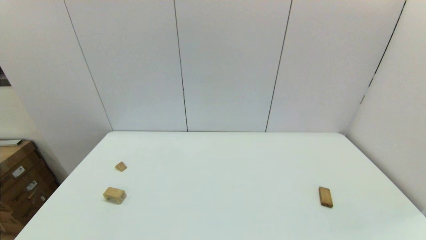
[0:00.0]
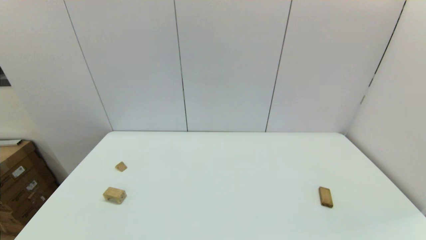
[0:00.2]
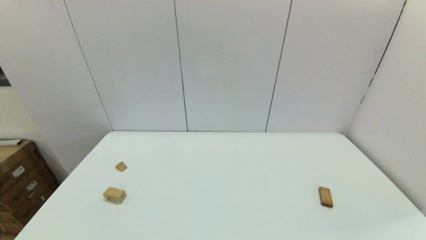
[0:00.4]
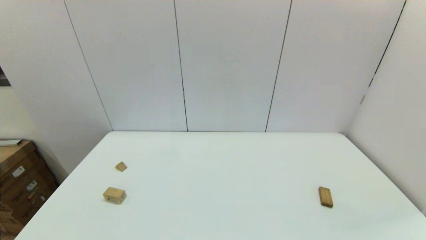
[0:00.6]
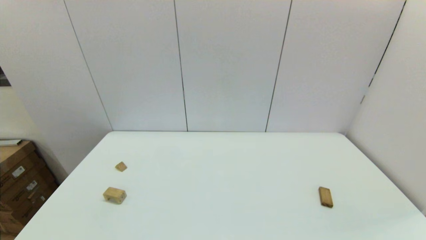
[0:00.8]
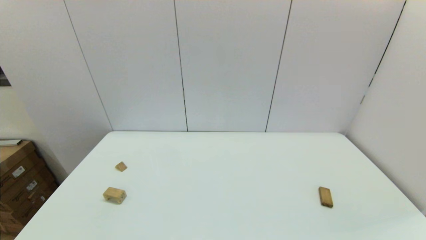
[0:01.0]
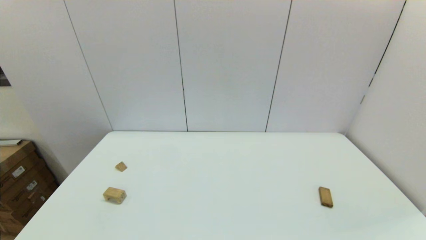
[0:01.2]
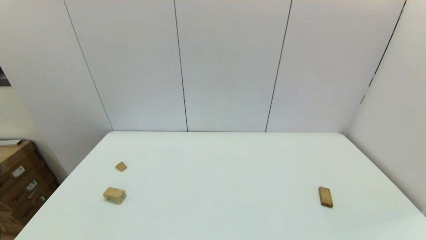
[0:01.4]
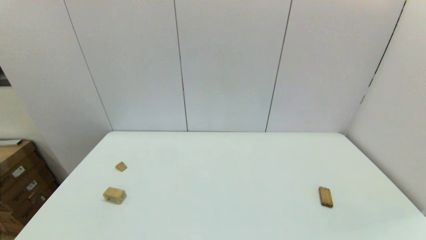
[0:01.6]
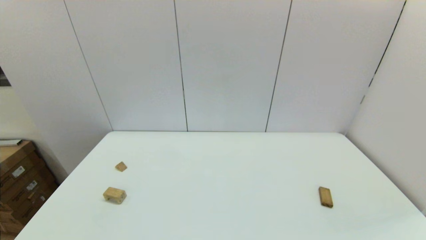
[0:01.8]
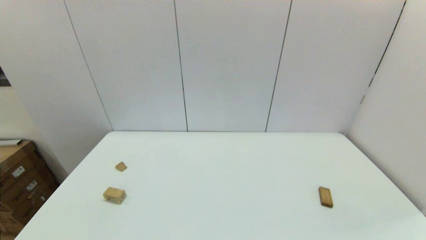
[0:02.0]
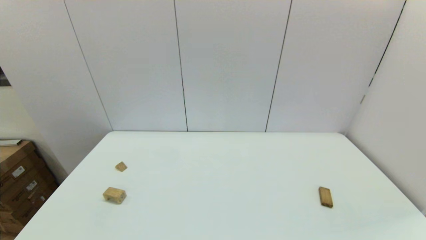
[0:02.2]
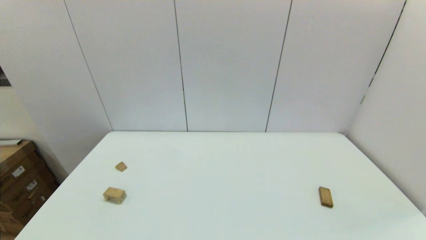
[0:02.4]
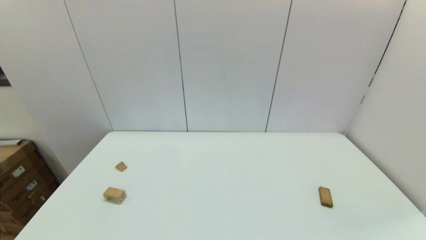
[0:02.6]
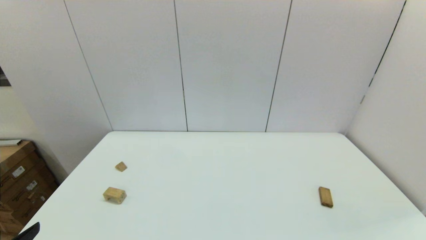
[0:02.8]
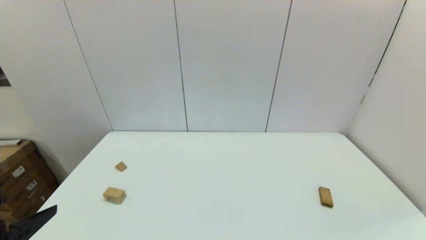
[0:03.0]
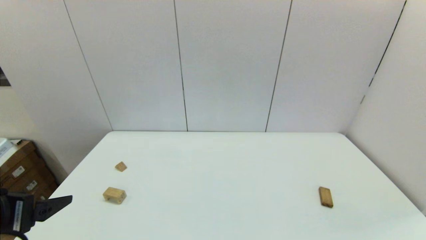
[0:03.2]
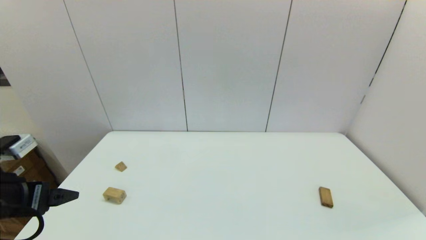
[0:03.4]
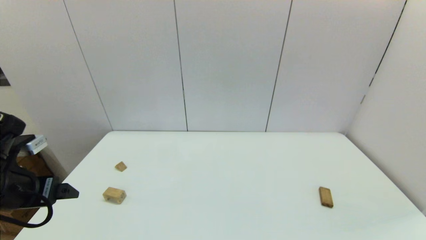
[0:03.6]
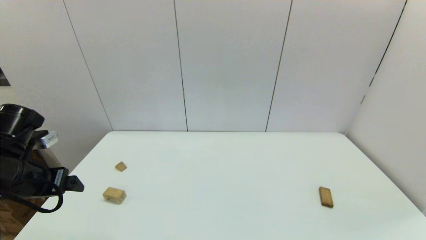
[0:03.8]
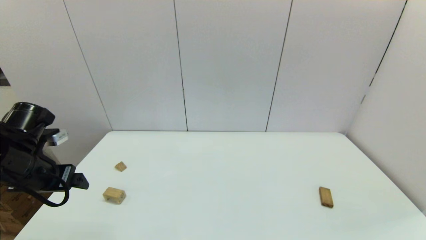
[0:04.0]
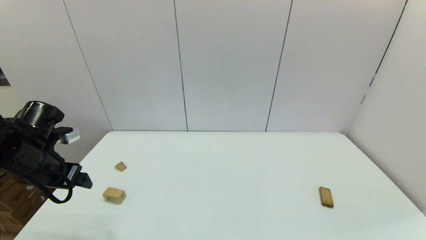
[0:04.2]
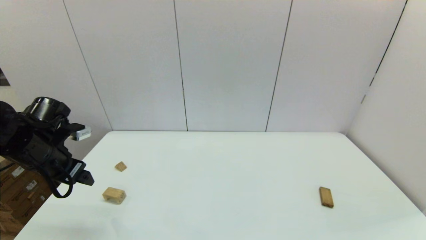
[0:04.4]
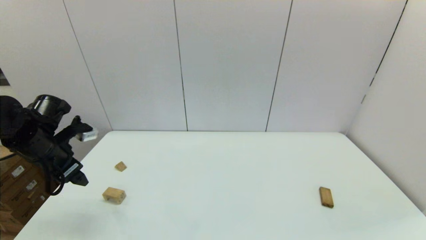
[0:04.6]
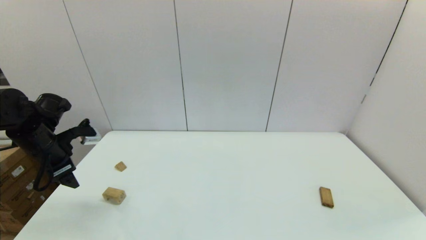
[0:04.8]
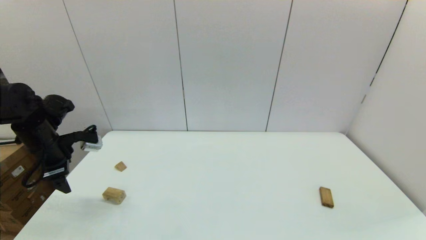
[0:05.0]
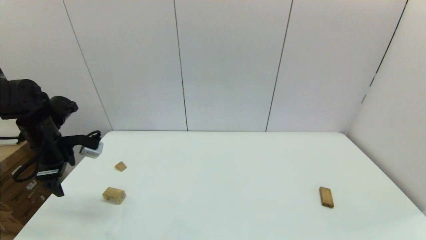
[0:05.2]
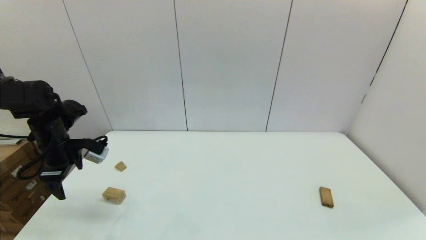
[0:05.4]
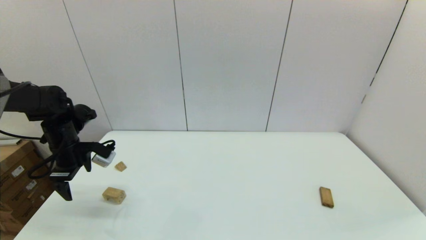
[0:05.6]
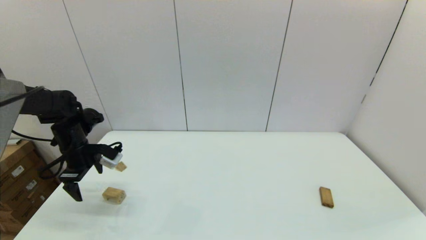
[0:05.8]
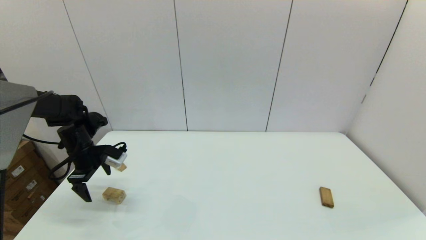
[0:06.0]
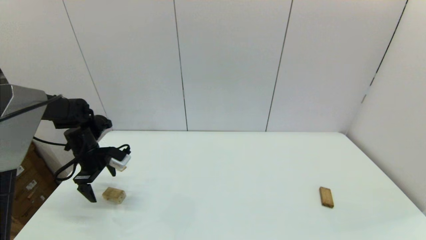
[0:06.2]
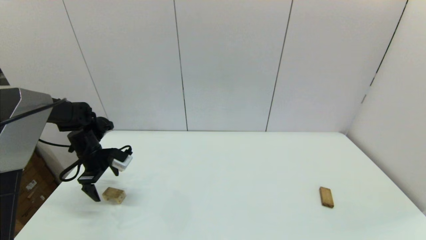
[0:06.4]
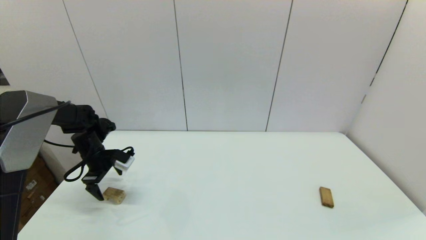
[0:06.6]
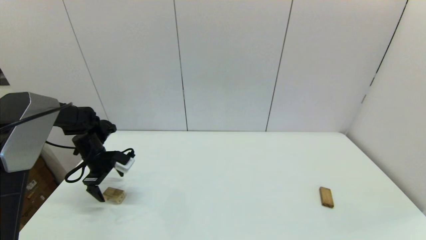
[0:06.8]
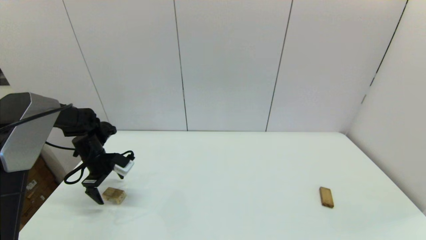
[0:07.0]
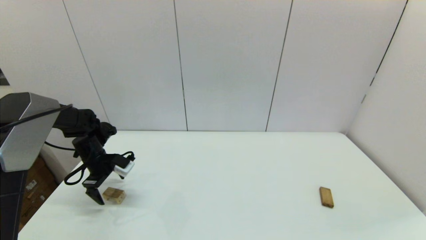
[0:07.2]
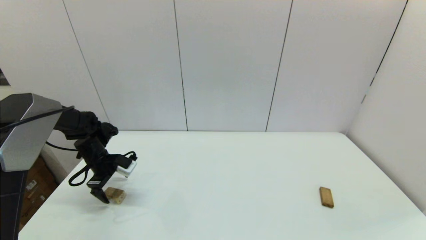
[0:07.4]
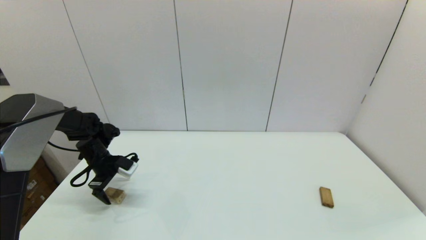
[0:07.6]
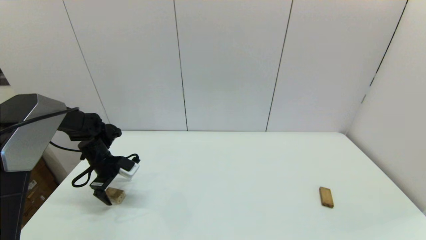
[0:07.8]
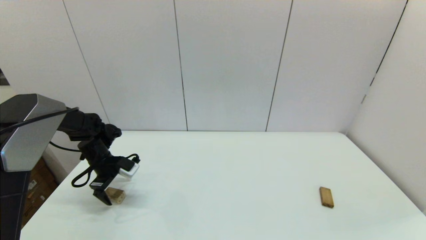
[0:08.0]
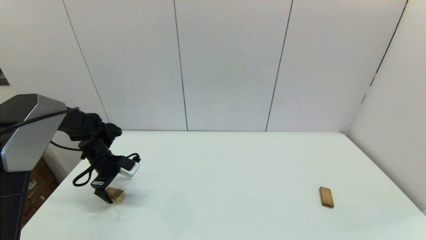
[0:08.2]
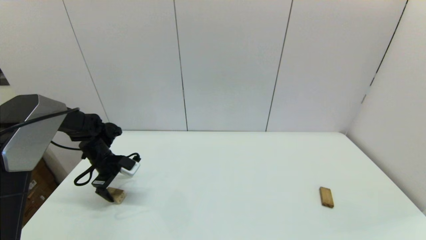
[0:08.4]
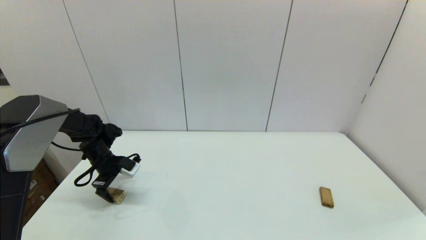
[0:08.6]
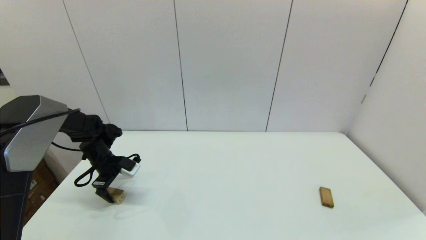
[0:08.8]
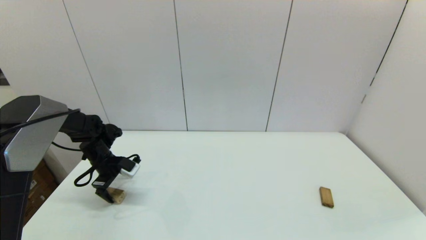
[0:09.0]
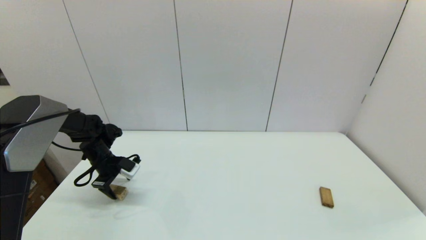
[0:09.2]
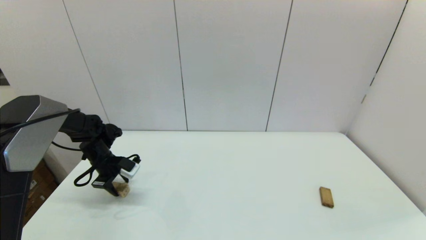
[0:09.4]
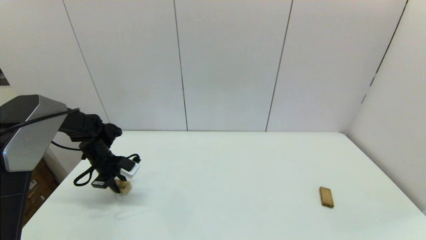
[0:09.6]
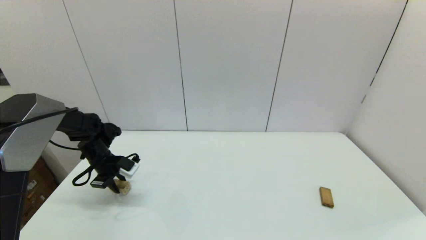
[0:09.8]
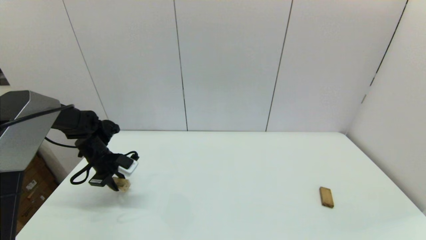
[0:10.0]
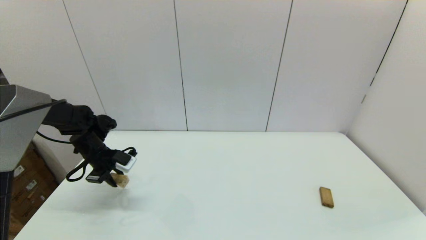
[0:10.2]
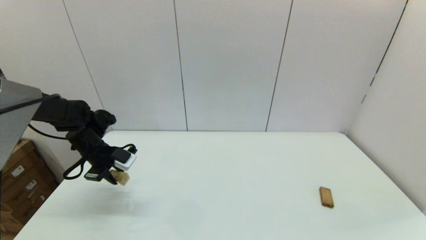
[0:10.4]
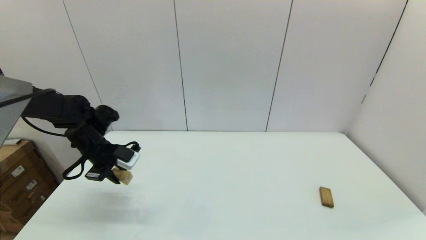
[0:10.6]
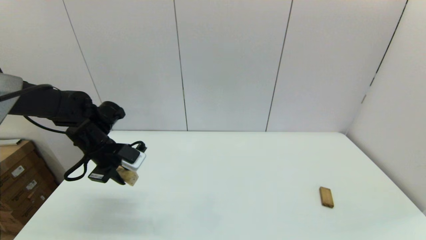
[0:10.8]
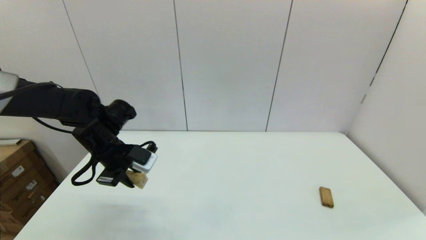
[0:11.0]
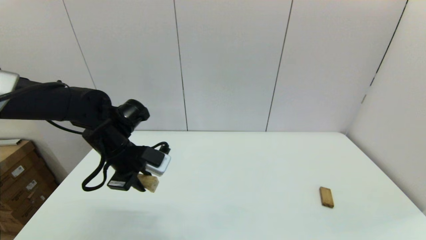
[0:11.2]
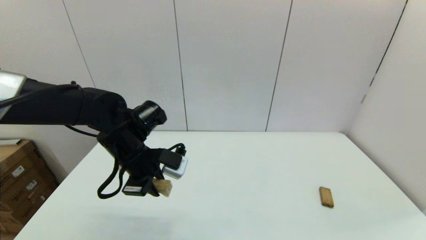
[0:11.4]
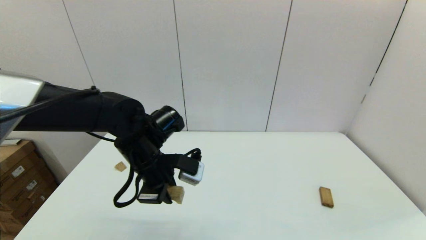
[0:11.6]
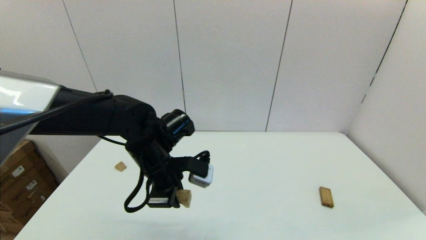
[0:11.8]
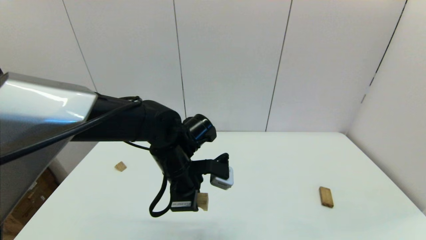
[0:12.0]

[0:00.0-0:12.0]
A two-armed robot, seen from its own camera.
Task of the whole recording: place the arched building blocks in the center of the table, set up the rectangular building blocks, and then set up the triangular building blocks.
Step, 0:02.8 to 0:09.6: Grasp the arch-shaped block with the left gripper.
0:00.0 to 0:01.6: Neither gripper changes place.
0:01.6 to 0:03.0: The left gripper shifts roughly 15 cm upward and forward.
0:03.0 to 0:04.4: The left gripper is displaced forward by some 20 cm.
0:04.4 to 0:06.0: The left gripper is displaced forward and downward by approximately 10 cm.
0:06.0 to 0:07.6: The left gripper is displaced downward by some 5 cm.
0:07.6 to 0:09.0: The two grippers keep their place.
0:09.0 to 0:10.4: The left gripper heads upward, covering roughly 5 cm, and closes up.
0:10.4 to 0:12.0: The left gripper is displaced to the right and backward by about 25 cm.

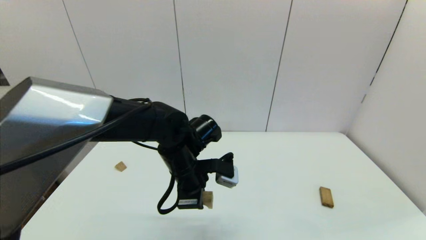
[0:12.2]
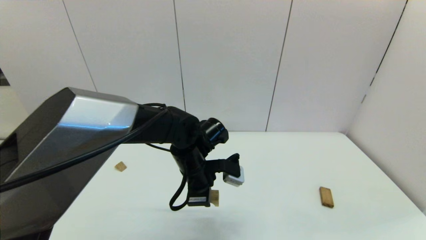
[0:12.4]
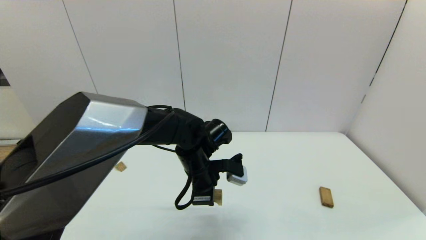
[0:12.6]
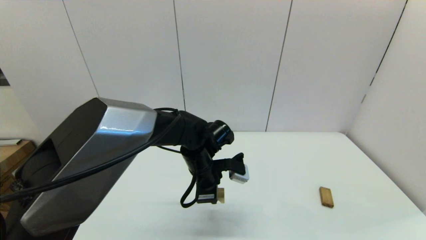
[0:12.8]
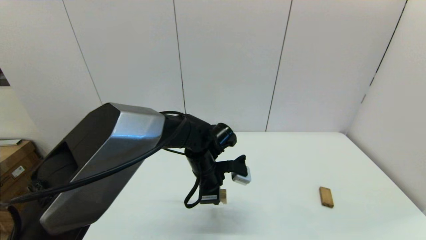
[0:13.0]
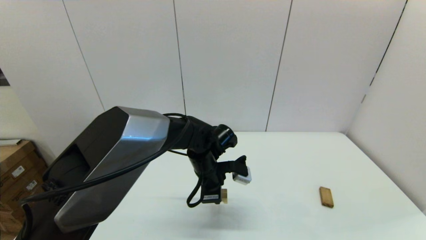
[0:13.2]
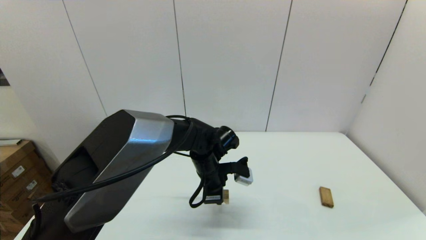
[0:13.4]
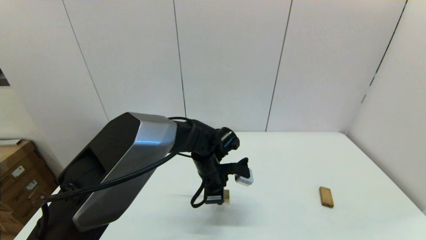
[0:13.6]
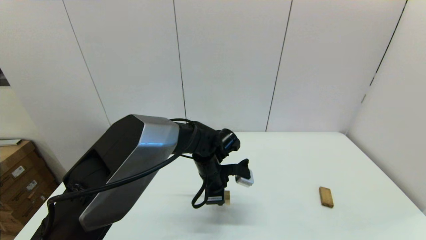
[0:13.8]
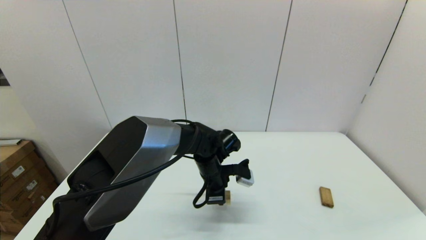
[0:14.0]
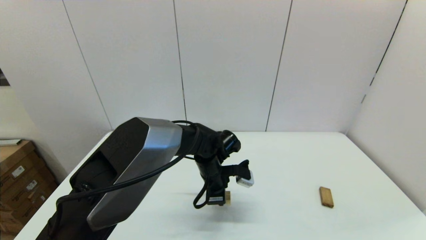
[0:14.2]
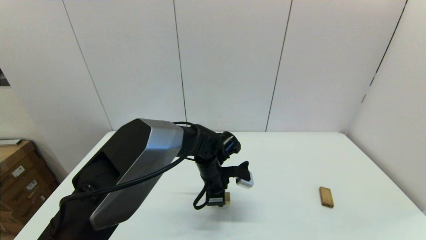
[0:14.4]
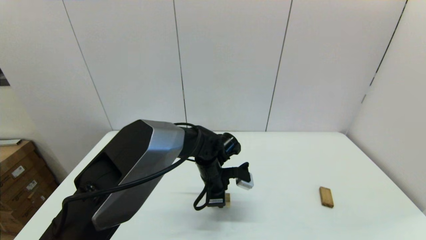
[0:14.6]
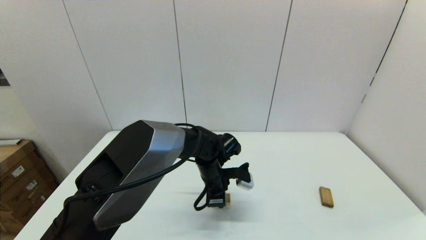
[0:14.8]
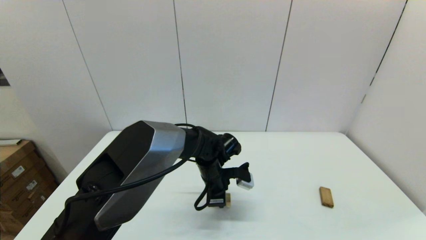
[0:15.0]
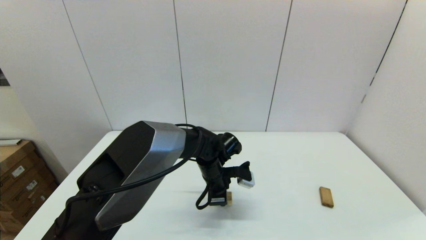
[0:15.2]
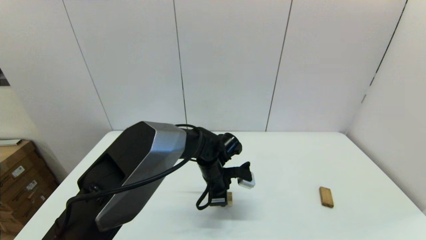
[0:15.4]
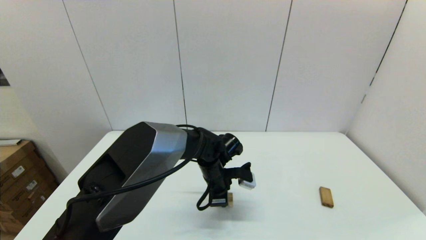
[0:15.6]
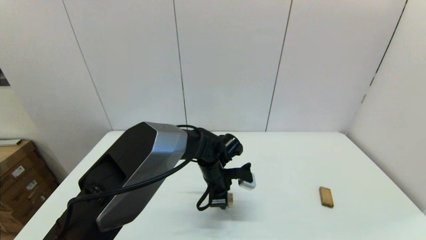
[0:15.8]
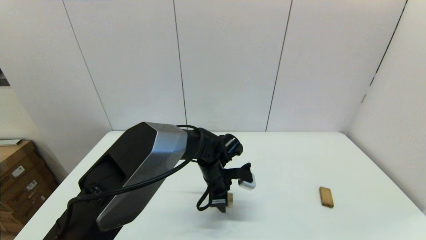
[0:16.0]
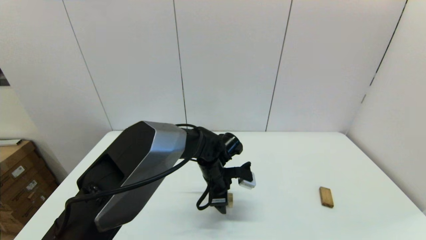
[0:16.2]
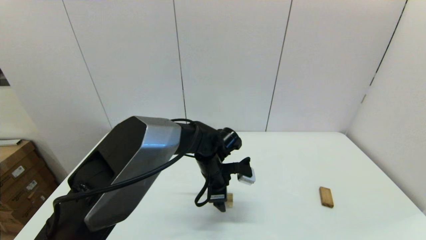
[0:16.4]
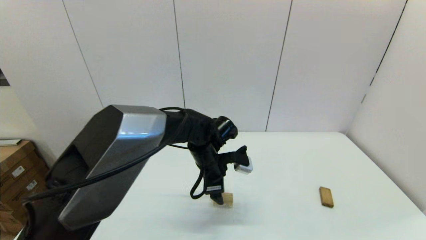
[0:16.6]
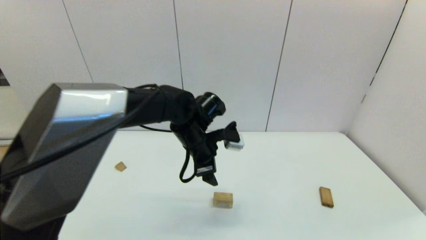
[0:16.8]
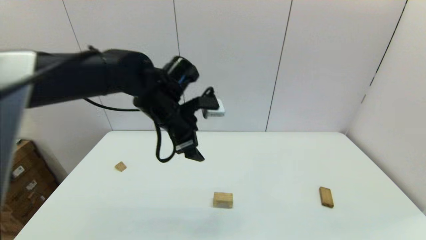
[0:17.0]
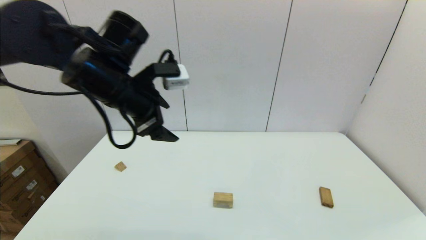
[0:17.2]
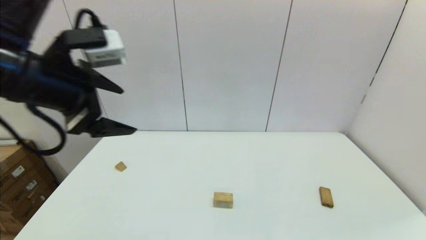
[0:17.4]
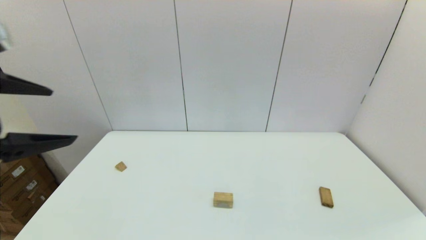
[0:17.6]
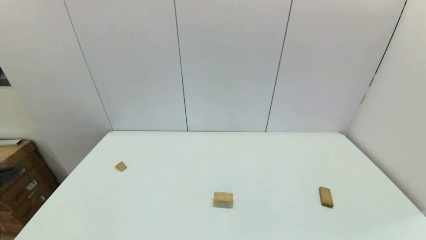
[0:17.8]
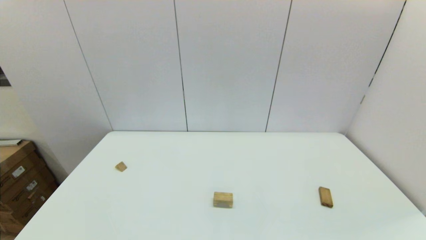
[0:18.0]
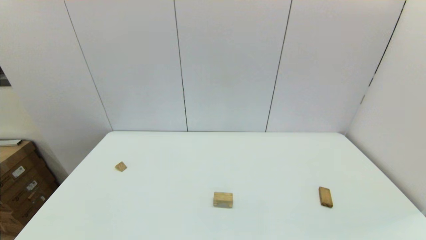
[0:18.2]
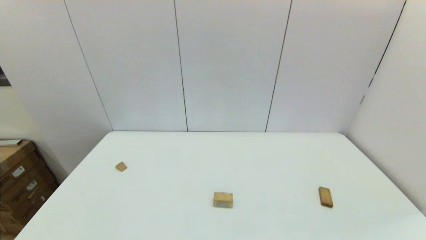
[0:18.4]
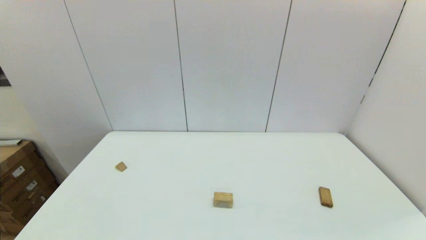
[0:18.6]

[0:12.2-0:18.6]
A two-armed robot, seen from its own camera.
Task of the whole recording: place the arched building blocks in the center of the table, set up the rectangular building blocks, and then set up the triangular building blocks.
Step, 0:12.2 to 0:16.2: Place the arch-shaped block in the center of view with the left gripper.
0:12.2 to 0:13.8: The left gripper goes approximately 10 cm downward and forward.
0:13.8 to 0:15.4: The grippers make only small movements.
0:15.4 to 0:17.0: The left gripper travels upward and to the left by about 25 cm, and opens up.
0:17.0 to 0:18.6: The left gripper is displaced backward and to the left by about 40 cm.
